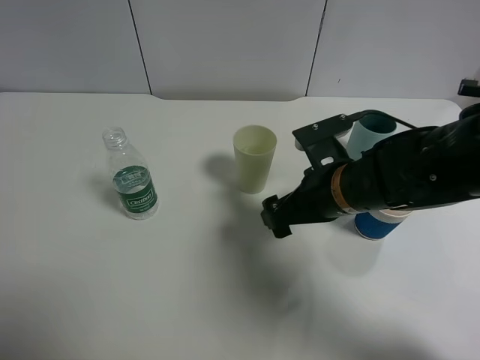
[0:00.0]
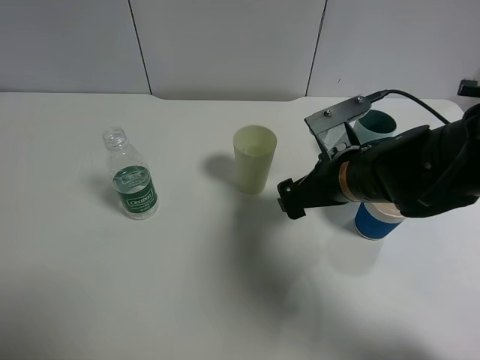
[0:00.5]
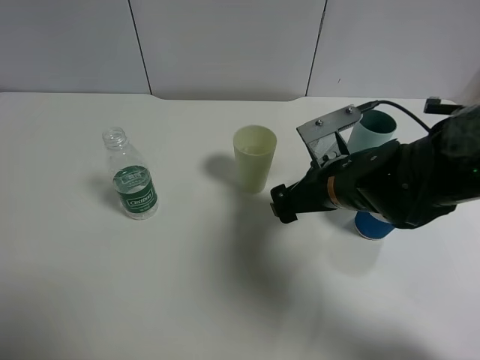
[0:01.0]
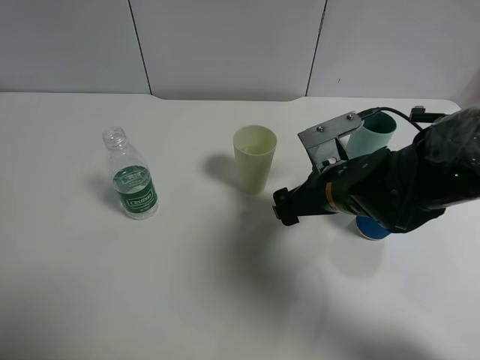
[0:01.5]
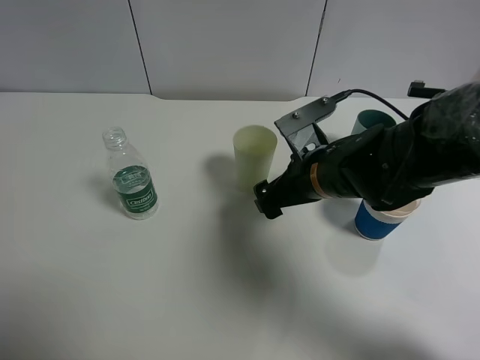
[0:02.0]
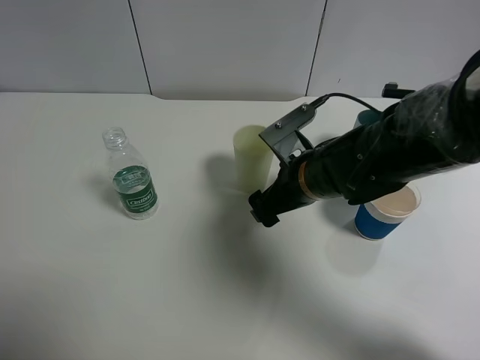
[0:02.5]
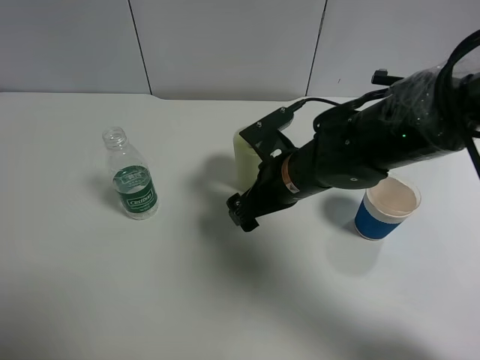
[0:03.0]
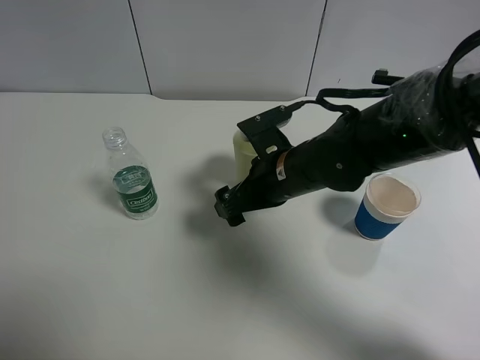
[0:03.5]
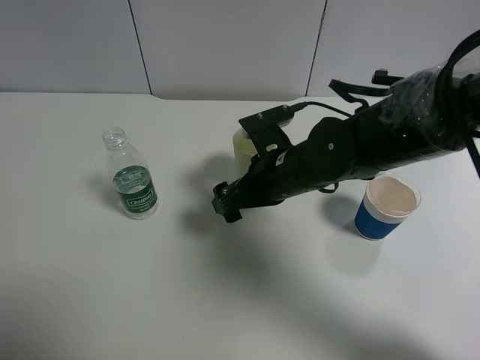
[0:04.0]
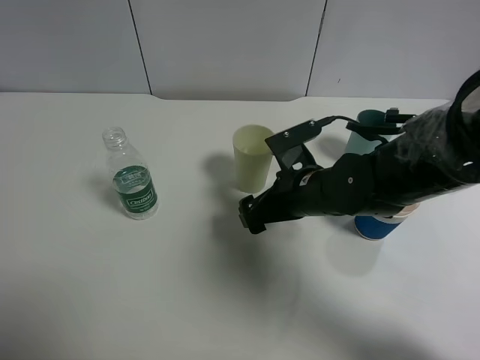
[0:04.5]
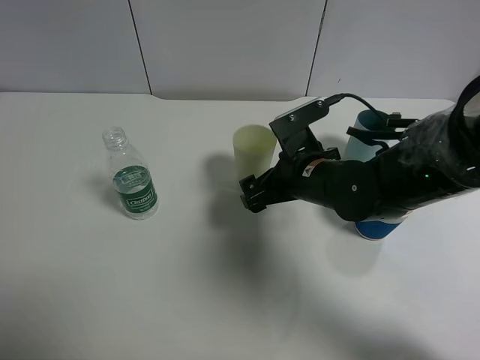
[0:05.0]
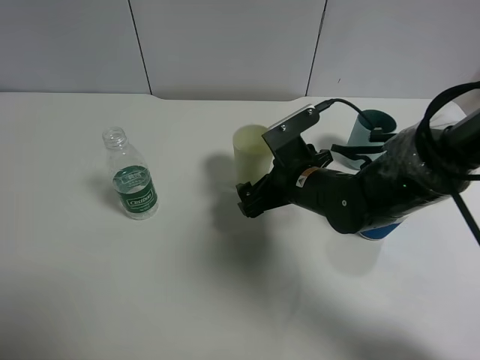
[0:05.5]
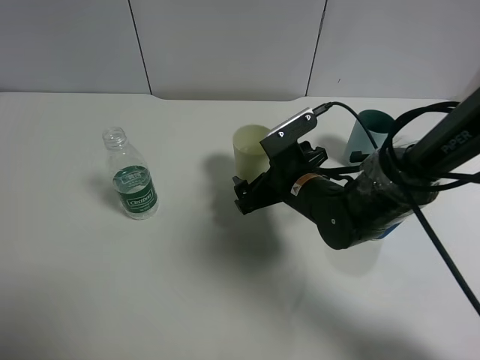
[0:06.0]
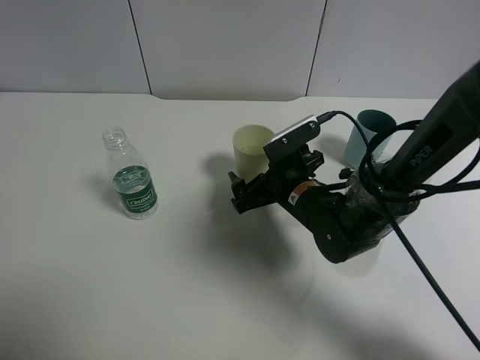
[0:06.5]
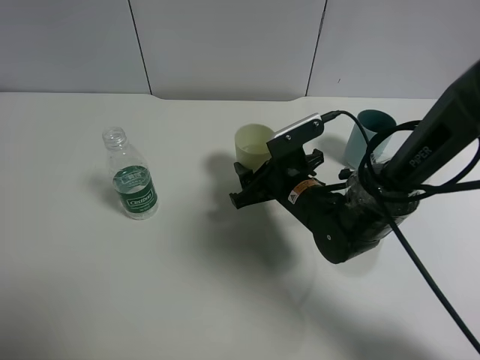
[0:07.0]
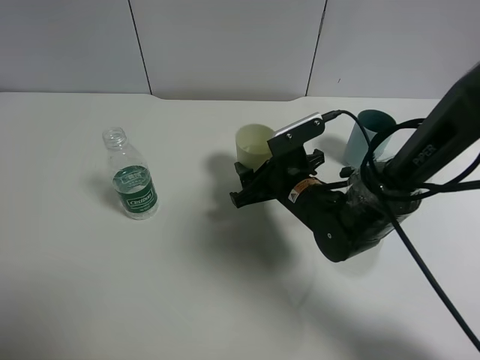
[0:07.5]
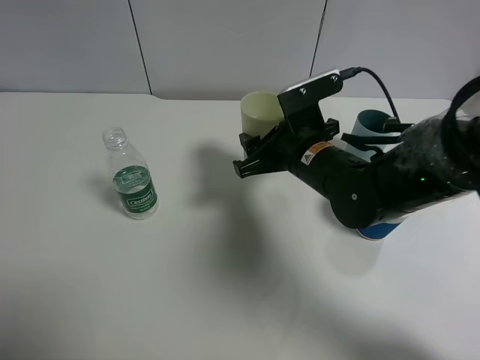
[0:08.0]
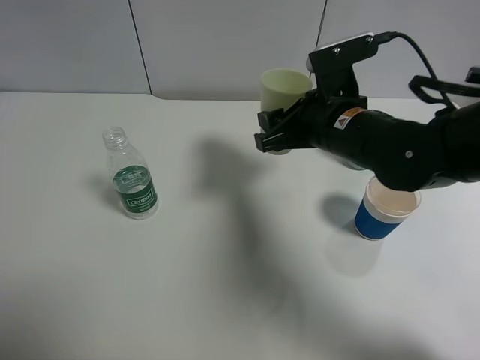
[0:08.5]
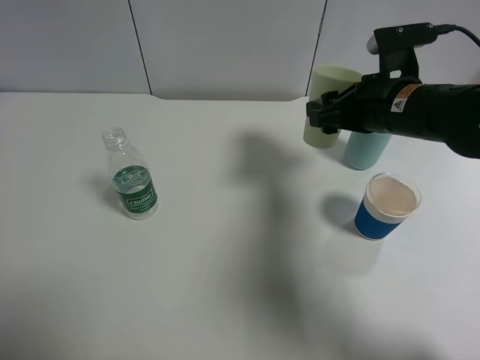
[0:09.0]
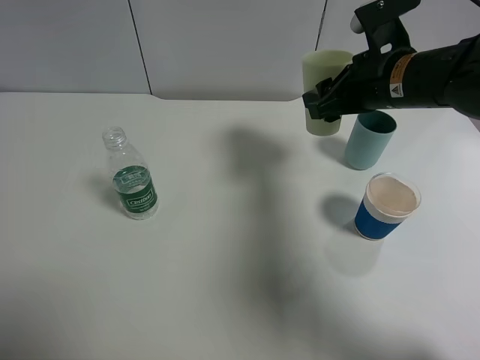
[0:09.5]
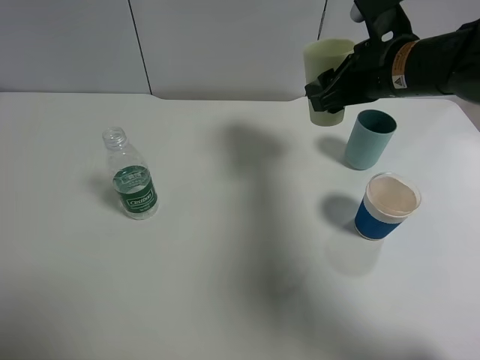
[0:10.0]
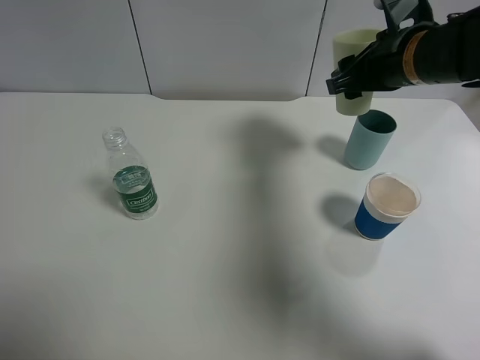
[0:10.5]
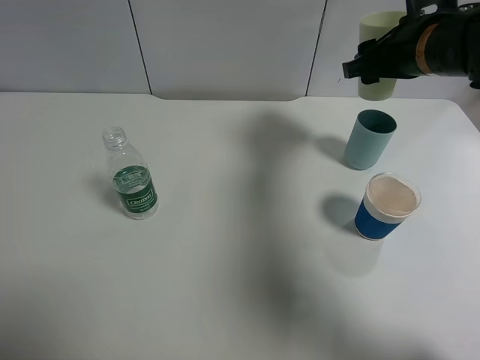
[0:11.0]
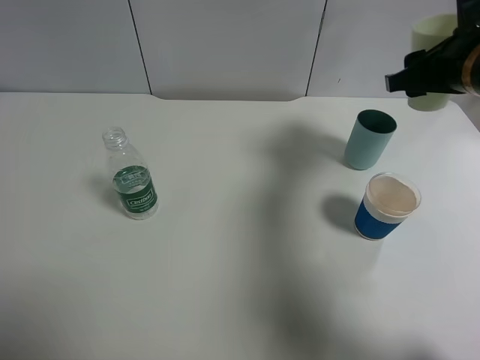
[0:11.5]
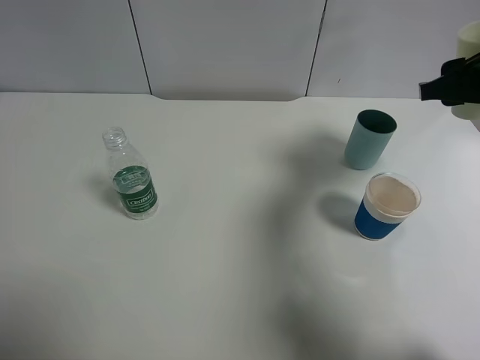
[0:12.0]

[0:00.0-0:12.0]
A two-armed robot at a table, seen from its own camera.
Task of the whole recording: use a clamp to hold the bottle of the drink, pour the beverage into a random cup, then clamp the cup containing the drink and pour the drink into another random cup.
Step, 0:00.0 to 0:08.0: Pick up the green plastic cup bottle with right gripper.
0:02.0 to 0:04.0: The grippers stay close to where they were, moving slightly.
0:04.0 to 0:06.0: The right gripper moves some 5 cm.
0:06.0 to 0:08.0: The right gripper closes up.
0:08.0 to 0:10.0: The right gripper is displaced upward and to the right by roughly 15 cm.
0:10.0 to 0:12.0: The right gripper moves to the right, some 10 cm.

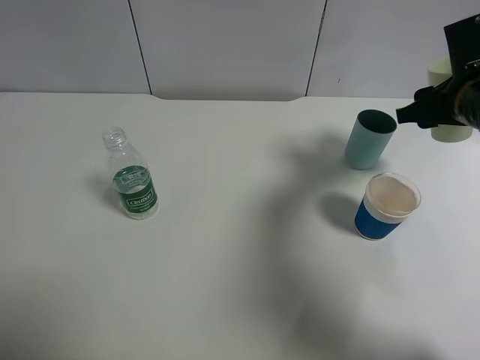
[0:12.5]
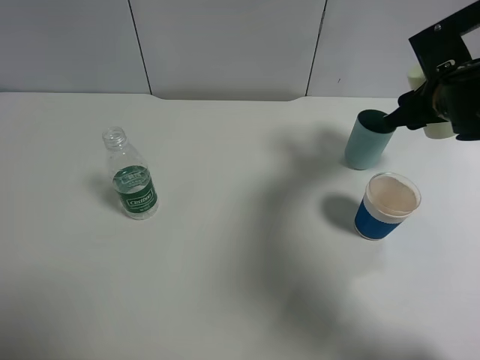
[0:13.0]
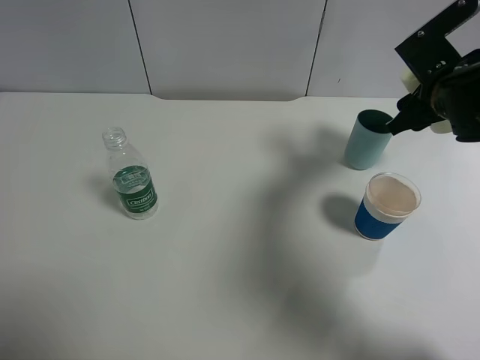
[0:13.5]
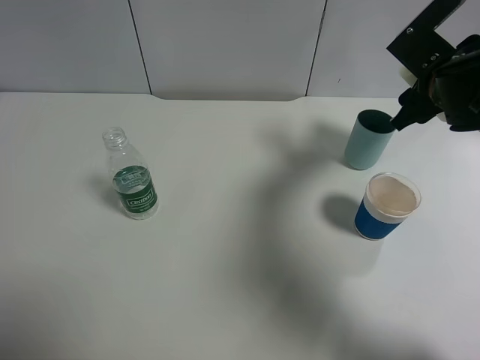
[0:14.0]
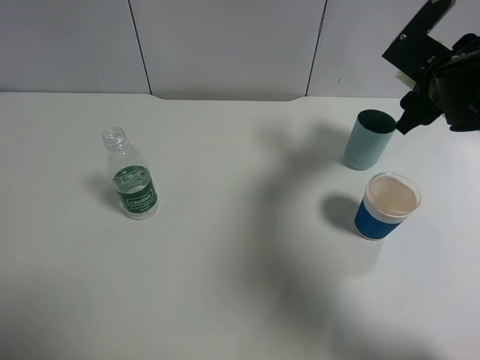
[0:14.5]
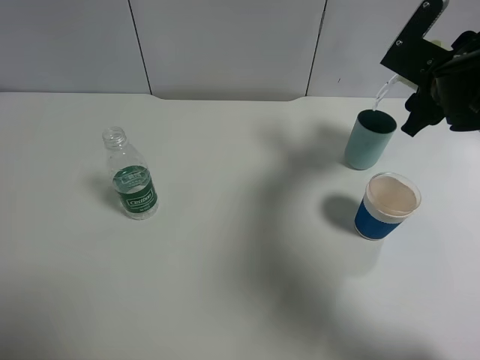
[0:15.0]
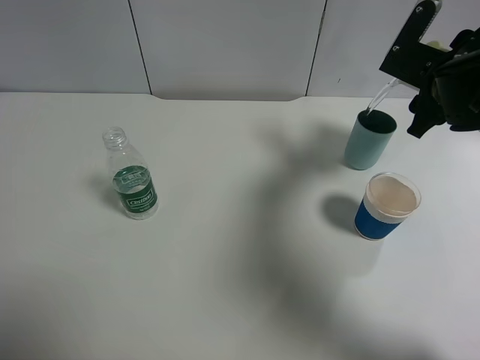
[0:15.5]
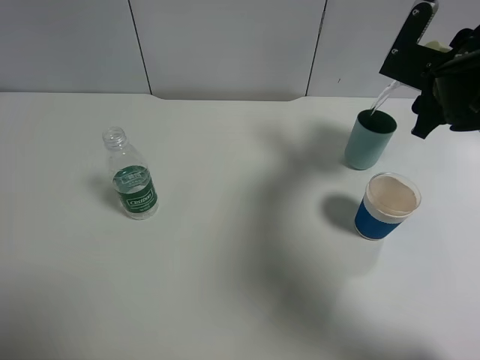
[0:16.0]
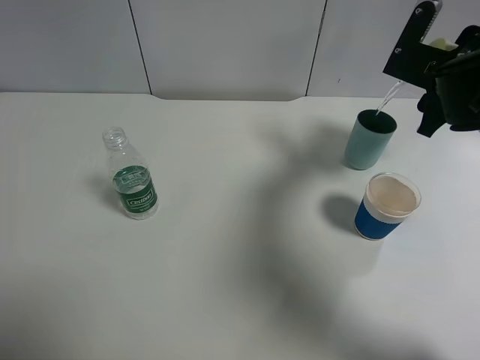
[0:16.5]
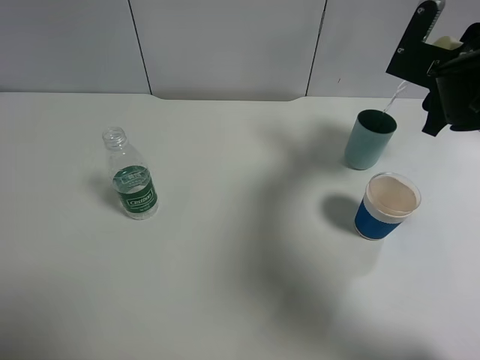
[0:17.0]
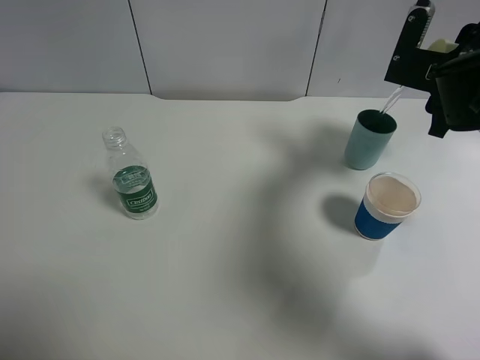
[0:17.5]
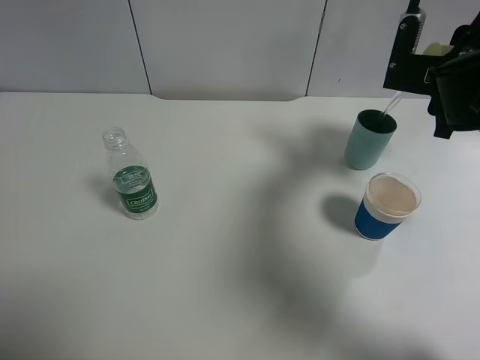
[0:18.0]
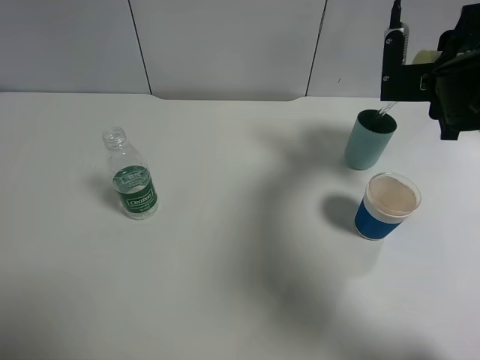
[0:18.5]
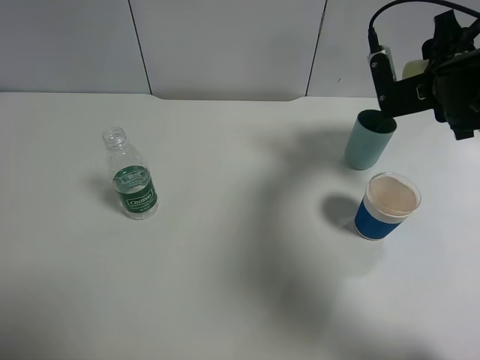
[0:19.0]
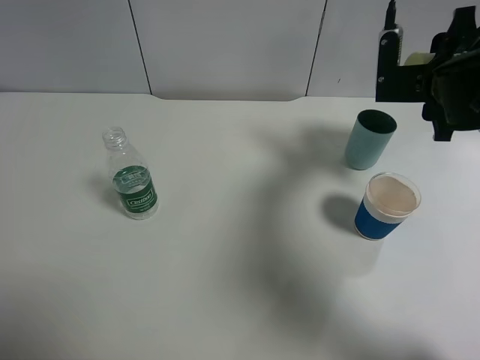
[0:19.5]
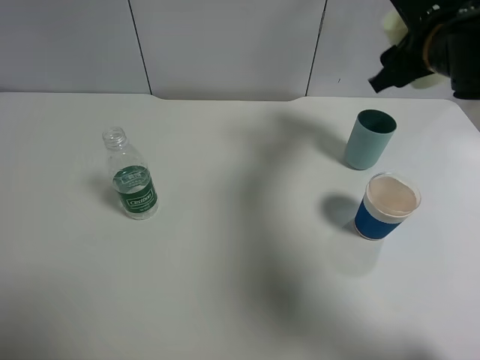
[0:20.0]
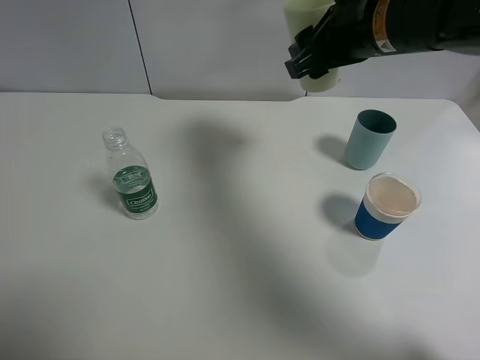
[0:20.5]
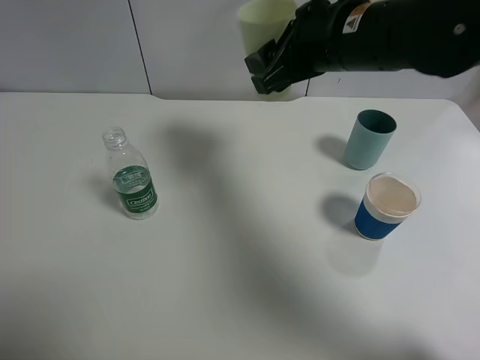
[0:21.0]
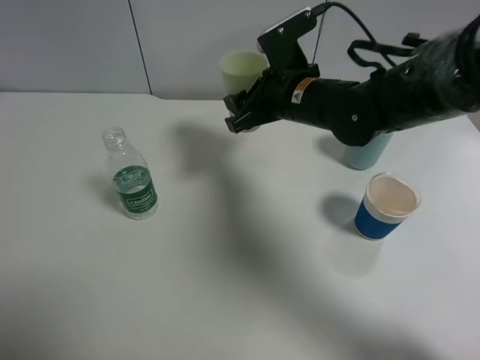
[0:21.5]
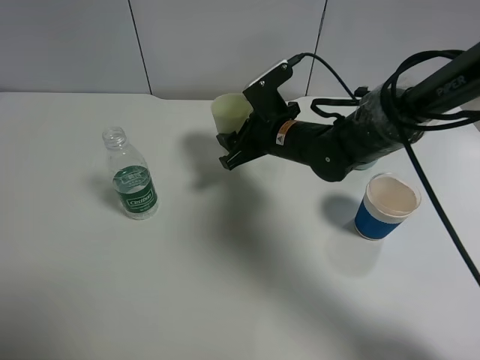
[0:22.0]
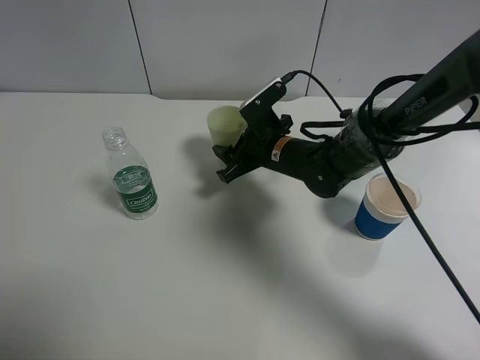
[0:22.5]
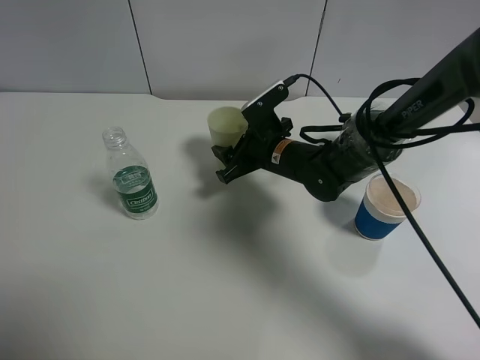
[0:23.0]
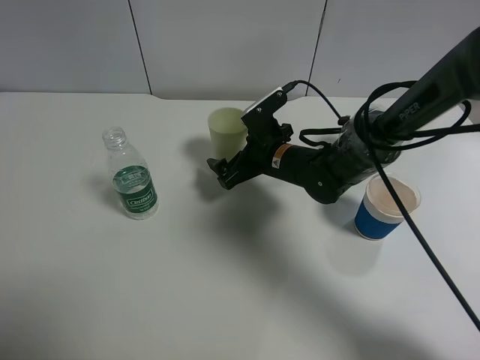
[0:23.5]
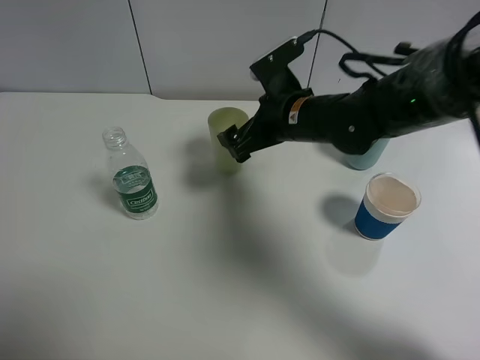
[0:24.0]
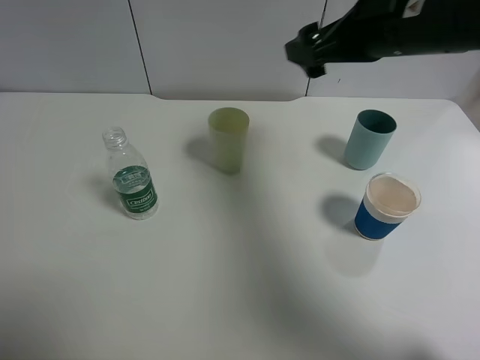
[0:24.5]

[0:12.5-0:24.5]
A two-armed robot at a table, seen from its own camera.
Task of the whole recording: use a clamp to hold the bottle of the drink, pour the beverage into a random cup, then clamp the cup containing the drink and pour the drink into another random cup.
Step, 0:12.5 to 0:19.5: Pour water into the blue plastic cup with right gripper.
Step, 0:20.0 to 0:23.5: Place the green plastic cup on the table with right gripper.
0:14.5 to 0:16.5: The grippers stay close to where they were, moving slightly.
0:18.5 to 0:20.5: The right gripper heads to the left and upward, covering roughly 15 cm.
0:20.5 to 0:22.5: The right gripper travels downward by approximately 20 cm.
0:22.5 to 0:24.5: The right gripper moves upward and to the right, some 20 cm, and opens.

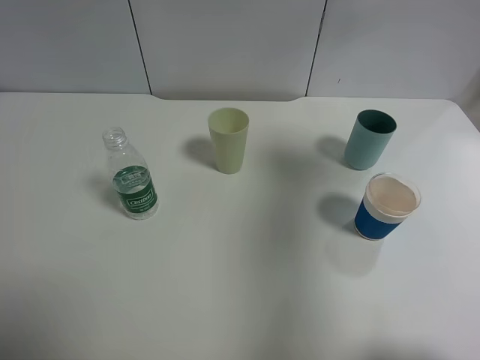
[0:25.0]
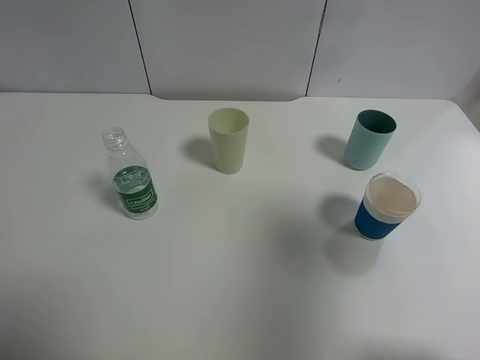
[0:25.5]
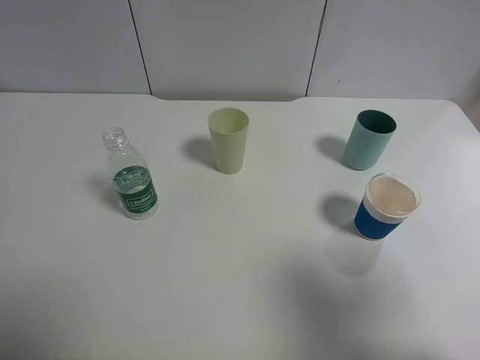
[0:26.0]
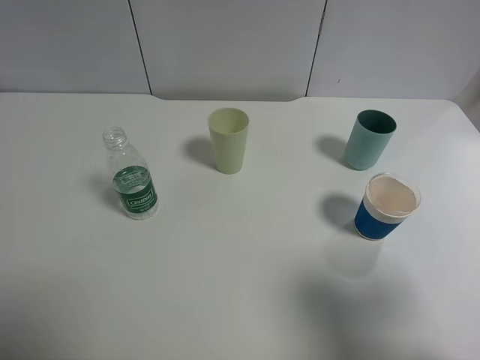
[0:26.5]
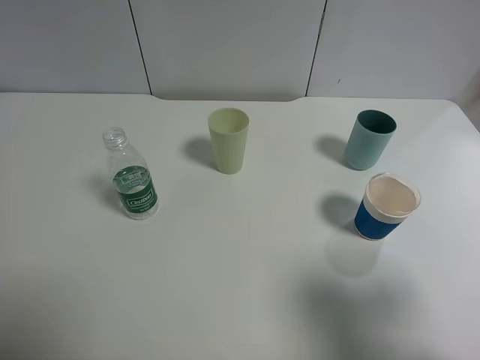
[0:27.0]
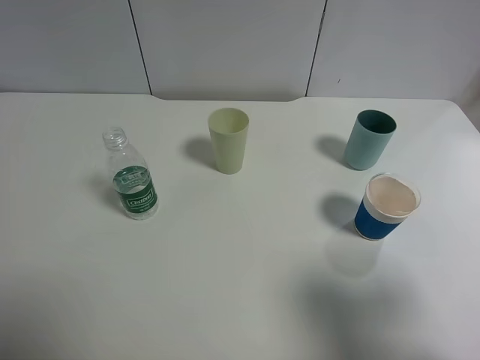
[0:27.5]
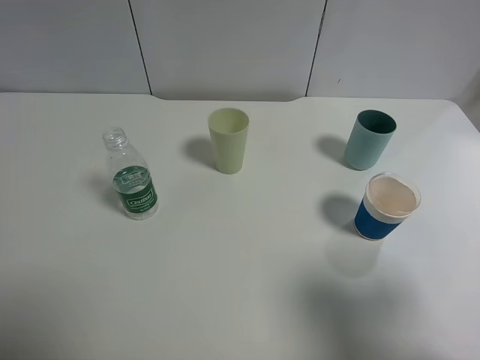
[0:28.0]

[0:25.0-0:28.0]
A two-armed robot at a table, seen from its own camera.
Task of the whole recording: use a clamp to hold the bottle of the drink, pour the beverage into a random cup, then clamp the cup containing the drink and pour the drink into another random cup.
0:25.0 to 0:26.5: The right gripper heads backward, covering some 25 cm.
